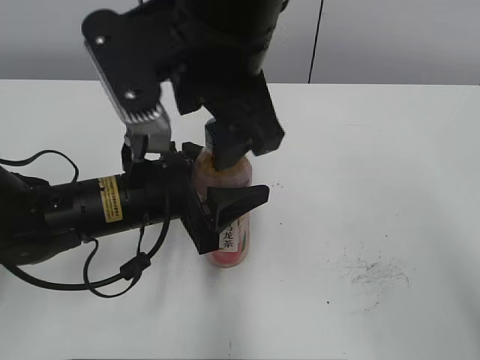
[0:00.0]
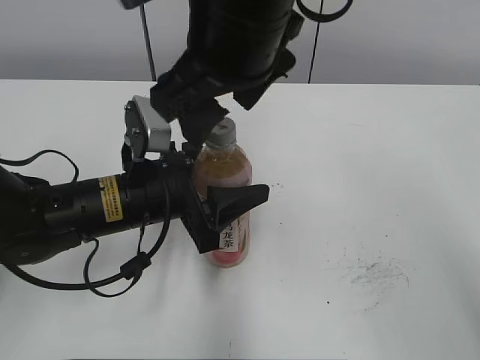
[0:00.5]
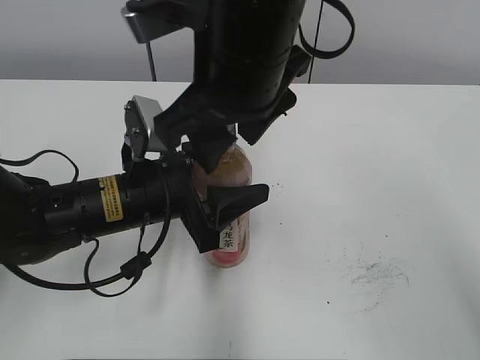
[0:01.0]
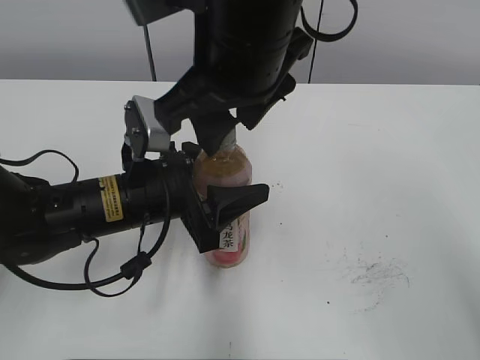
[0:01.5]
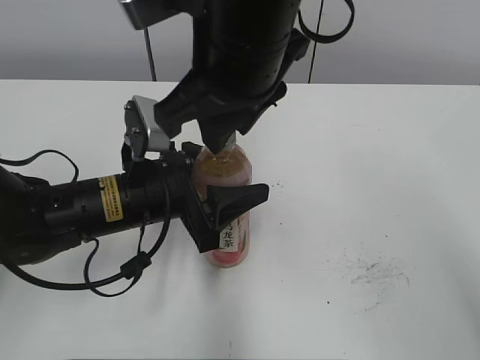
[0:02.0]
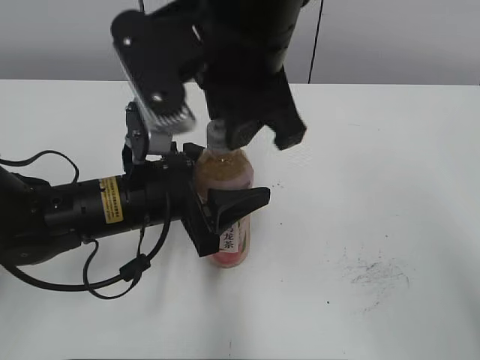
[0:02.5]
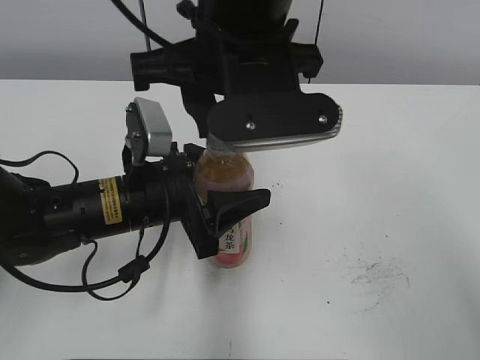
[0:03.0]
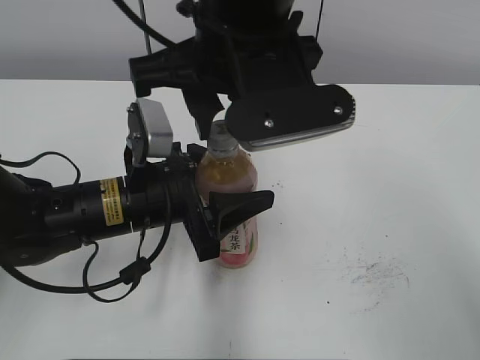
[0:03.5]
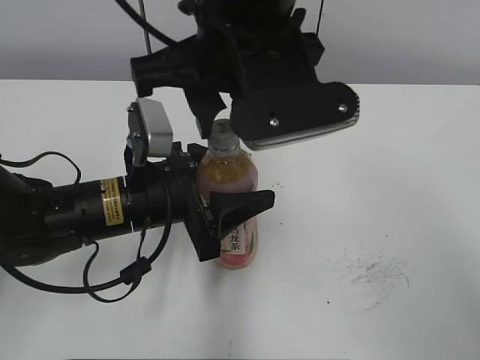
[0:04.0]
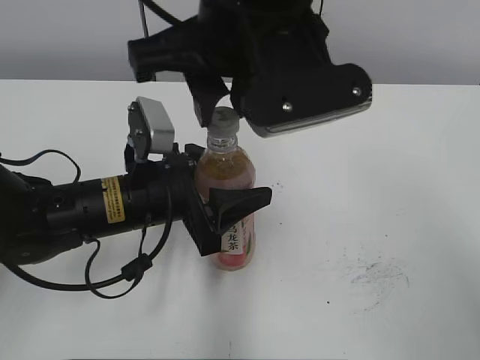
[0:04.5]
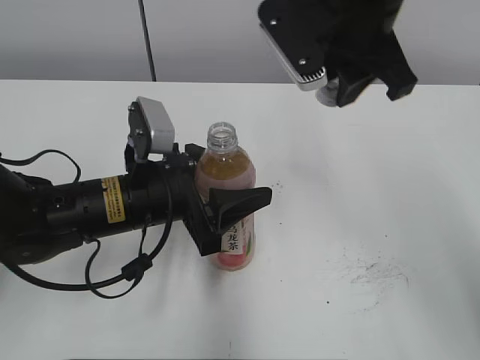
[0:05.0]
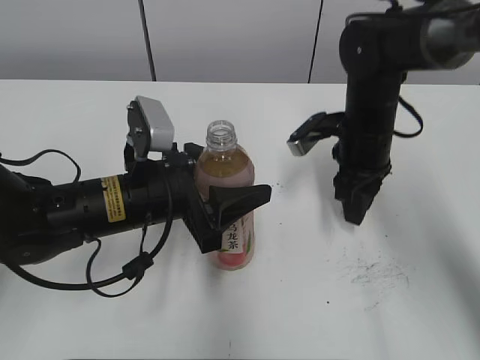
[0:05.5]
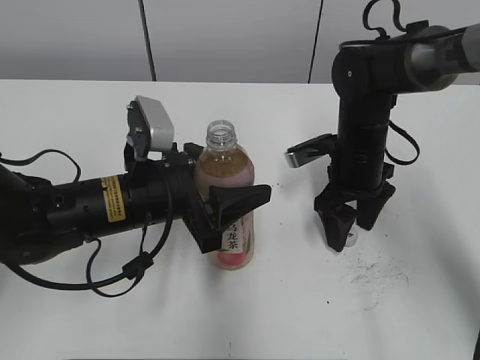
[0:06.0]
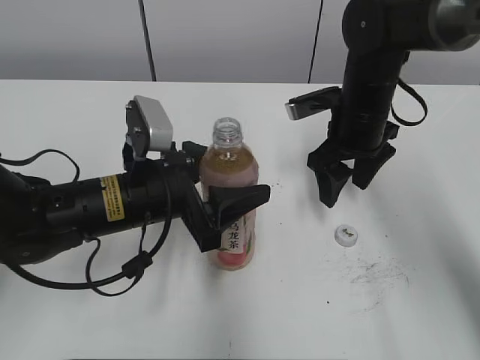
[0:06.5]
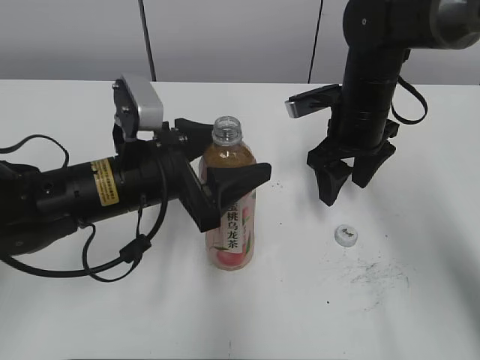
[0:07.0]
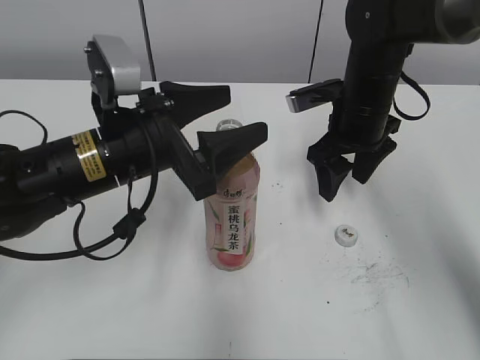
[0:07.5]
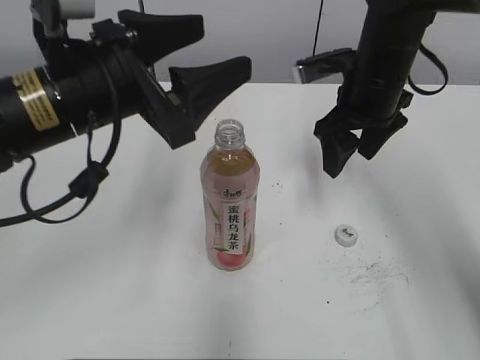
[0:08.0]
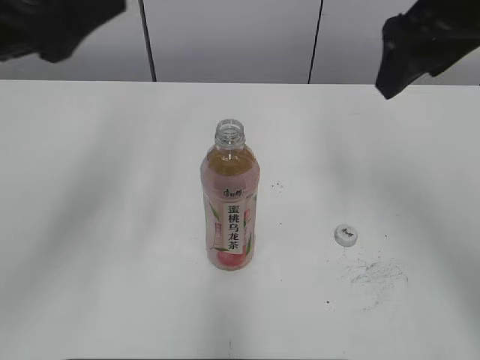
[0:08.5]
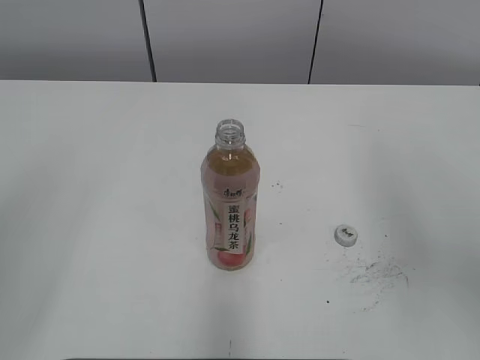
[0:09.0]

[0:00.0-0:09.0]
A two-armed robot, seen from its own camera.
Step, 0:05.0 to 0:05.5: Place the bottle cap on the right.
Step, 0:06.0 to 0:07.0: Place the Peach Oolong Tea with the left hand.
0:00.0 to 0:02.0: The right gripper closes its fingers.
0:04.5 to 0:07.0: The left gripper opens up; the right gripper shifts some 25 cm downward, to the right and forward, and opens.
0:07.0 to 0:09.0: The left gripper travels upward, backward and to the left by about 30 cm. Meanwhile the right gripper moves backward and upward, about 30 cm.

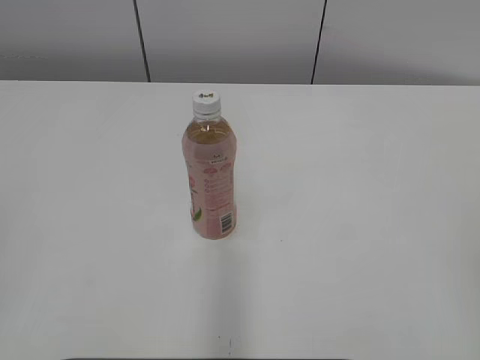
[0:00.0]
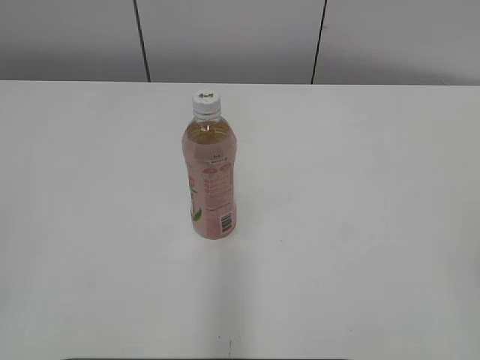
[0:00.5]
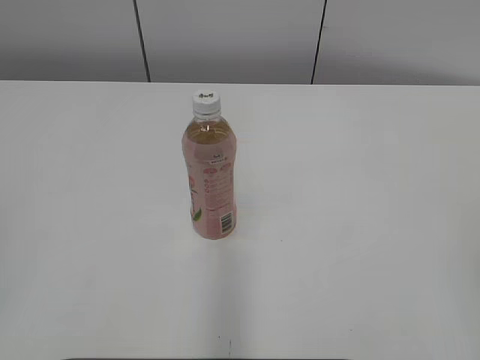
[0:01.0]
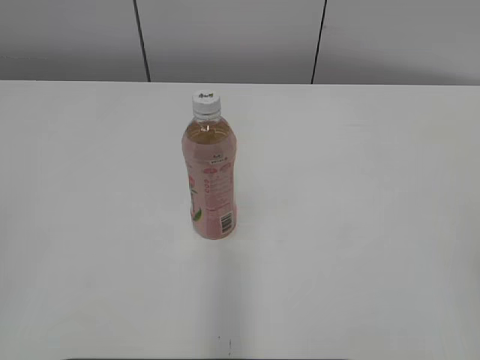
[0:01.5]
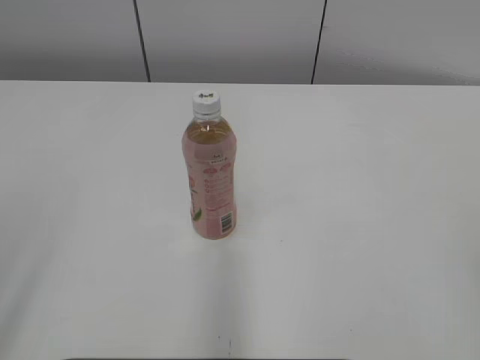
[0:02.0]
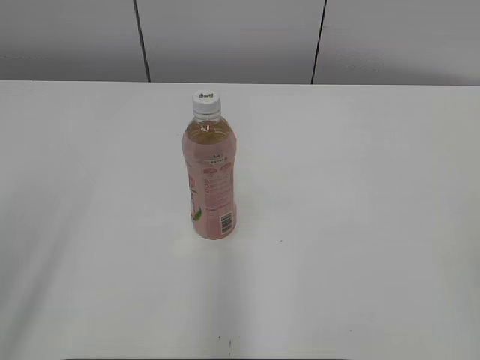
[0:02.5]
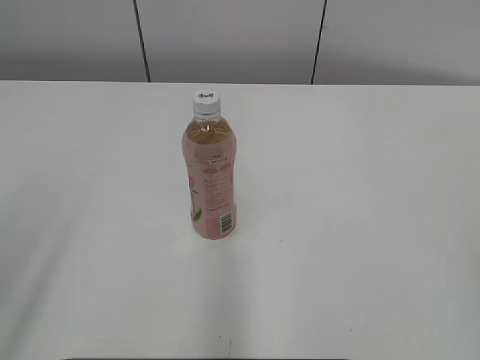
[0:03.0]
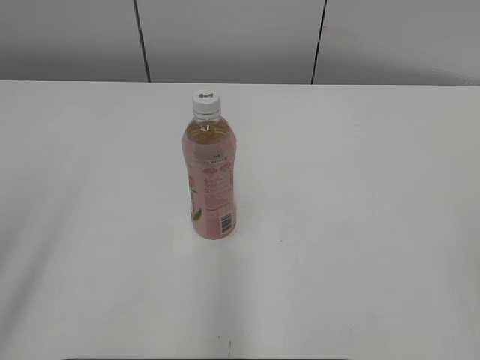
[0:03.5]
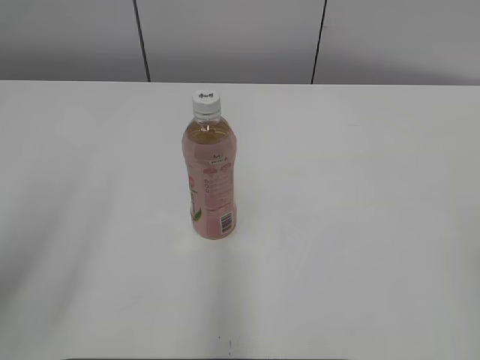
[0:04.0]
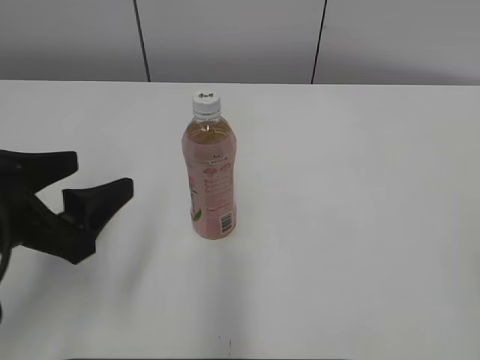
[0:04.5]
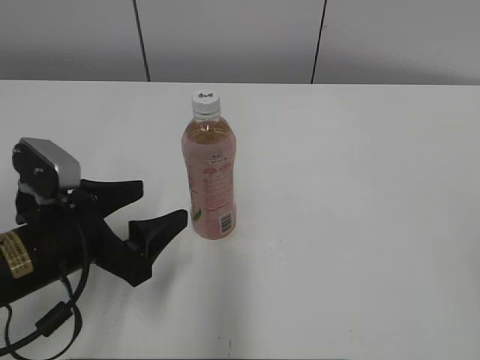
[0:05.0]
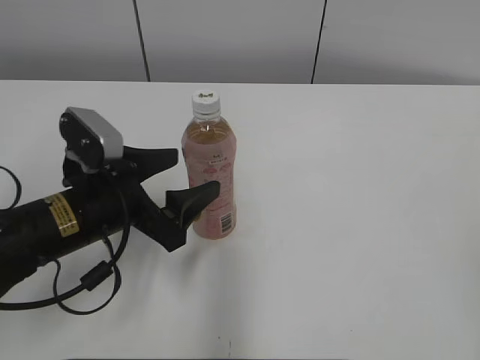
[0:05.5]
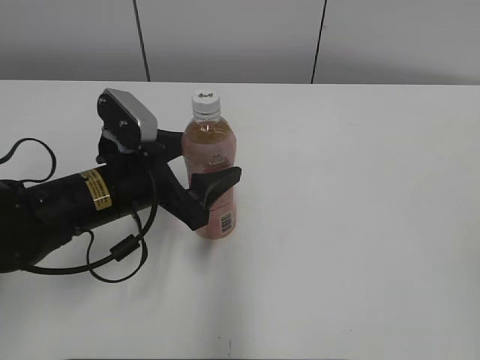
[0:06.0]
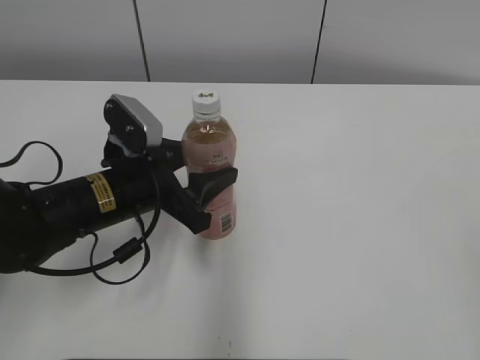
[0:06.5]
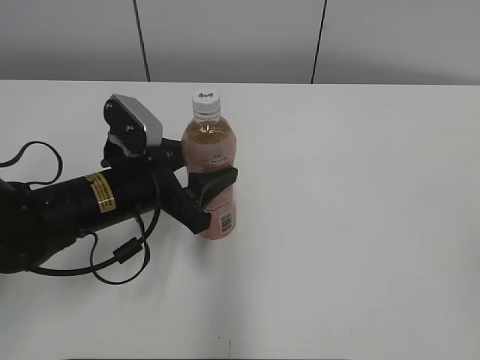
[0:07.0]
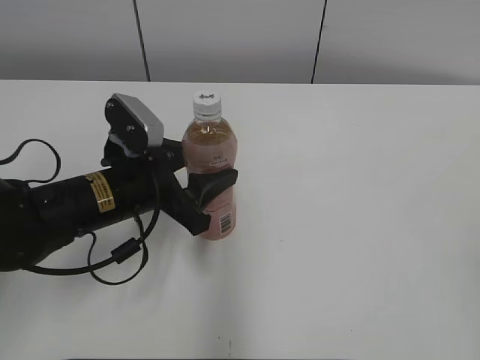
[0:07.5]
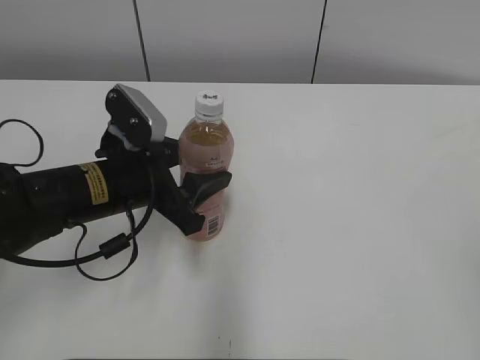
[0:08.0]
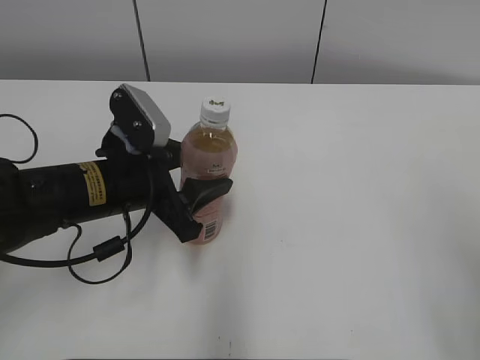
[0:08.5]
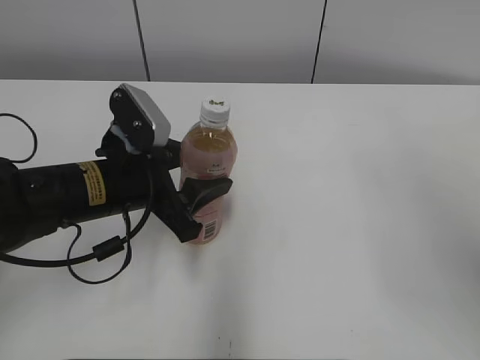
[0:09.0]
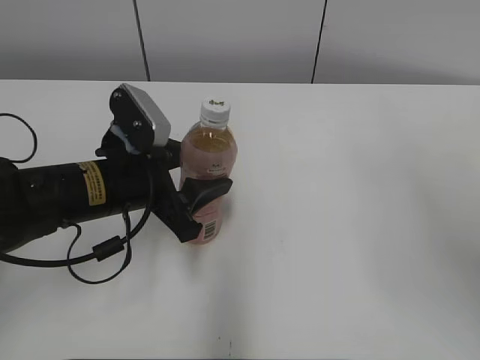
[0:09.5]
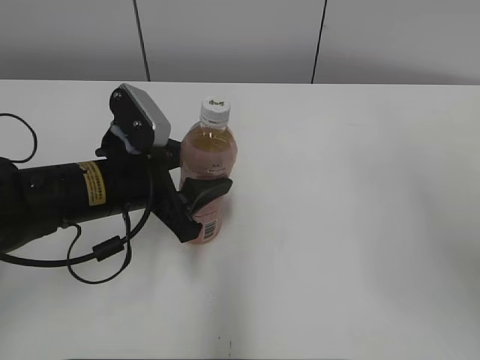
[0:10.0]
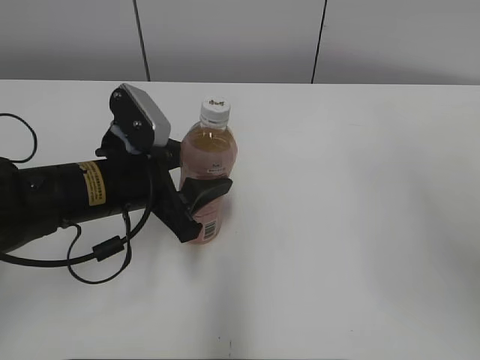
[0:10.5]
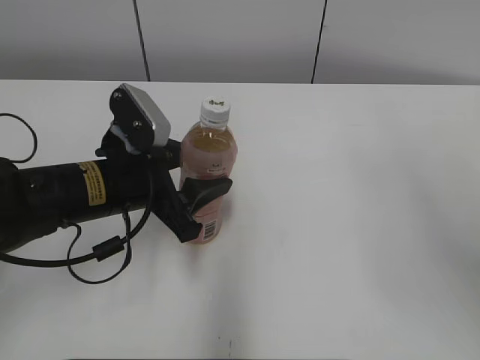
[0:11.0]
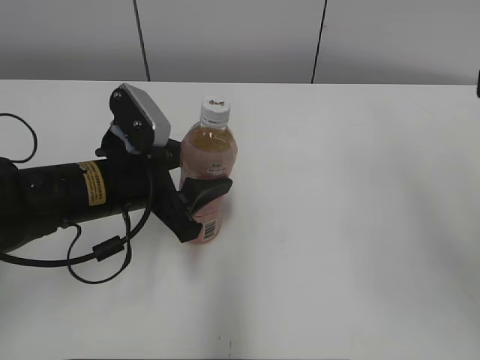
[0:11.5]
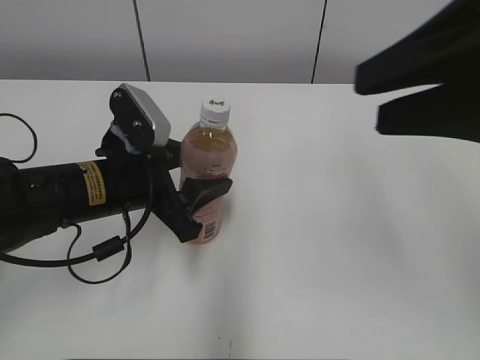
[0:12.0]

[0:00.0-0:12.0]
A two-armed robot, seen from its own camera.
Step, 0:00.0 to 0:07.0: Grab the Peach Oolong Tea with the left hand.
0:04.0 to 0:06.0: The left gripper shifts some 25 cm forward, to the right and downward, and opens up.
0:06.0 to 0:08.0: The left gripper closes.
0:08.0 to 0:10.0: The right gripper travels forward and upward by about 20 cm.
0:10.0 to 0:12.0: The right gripper heads to the left, covering some 5 cm.

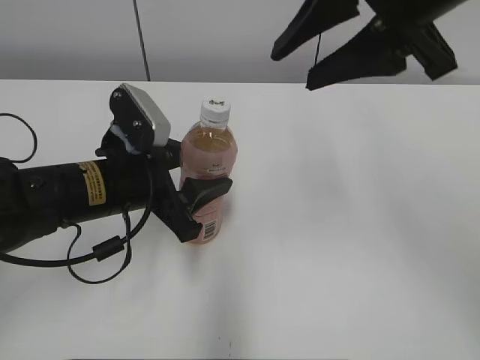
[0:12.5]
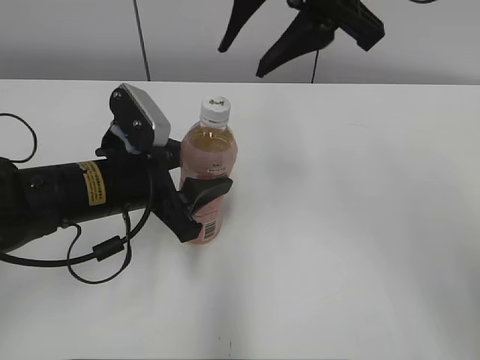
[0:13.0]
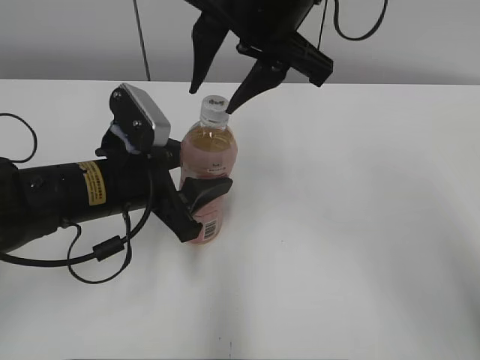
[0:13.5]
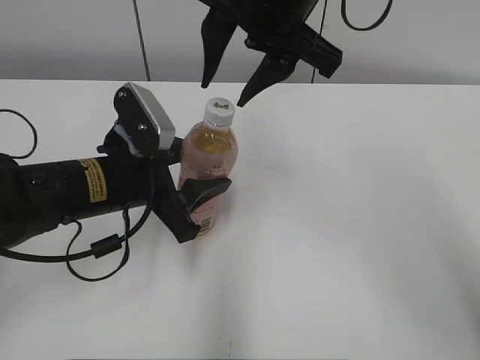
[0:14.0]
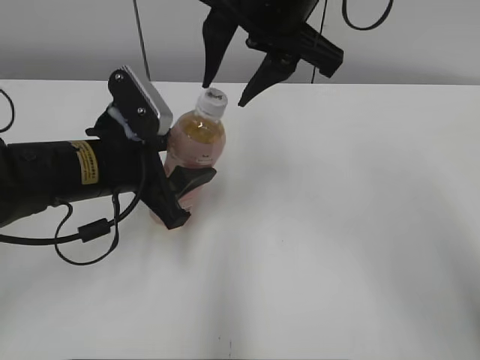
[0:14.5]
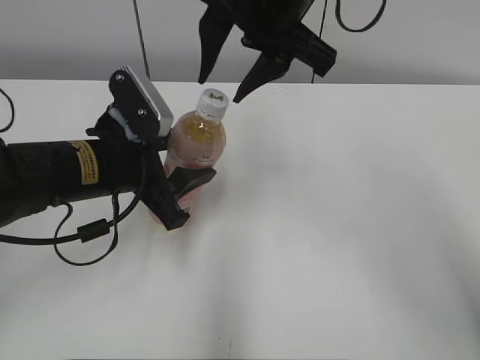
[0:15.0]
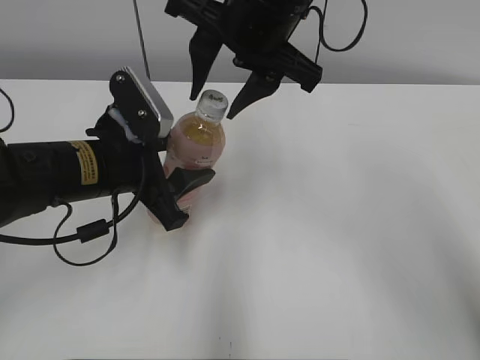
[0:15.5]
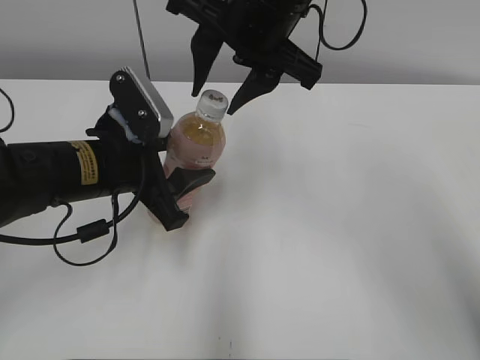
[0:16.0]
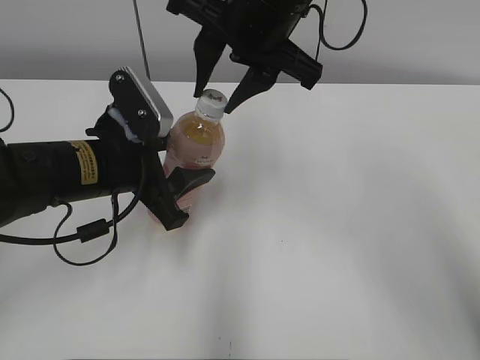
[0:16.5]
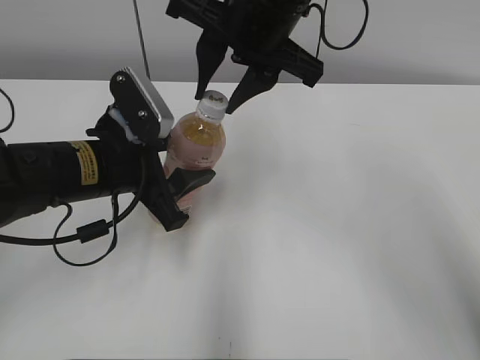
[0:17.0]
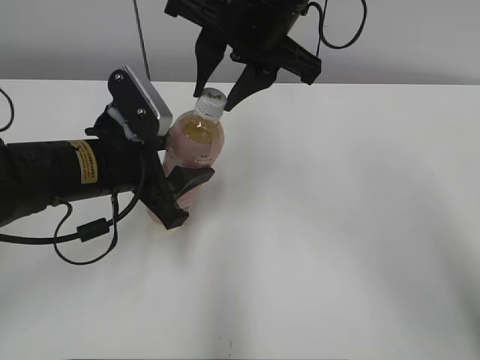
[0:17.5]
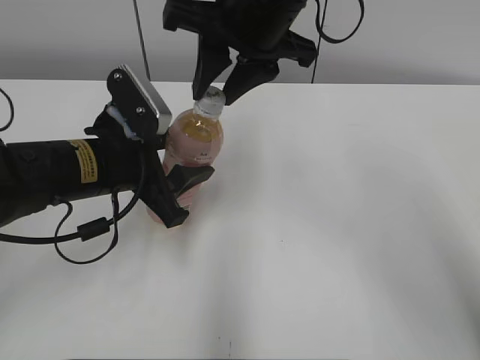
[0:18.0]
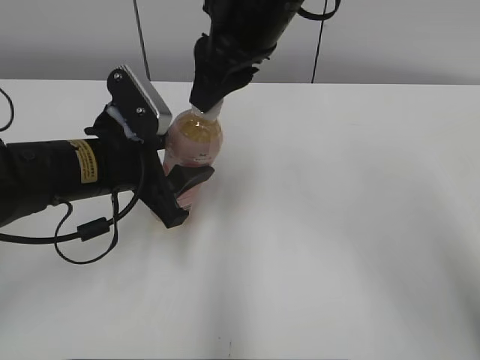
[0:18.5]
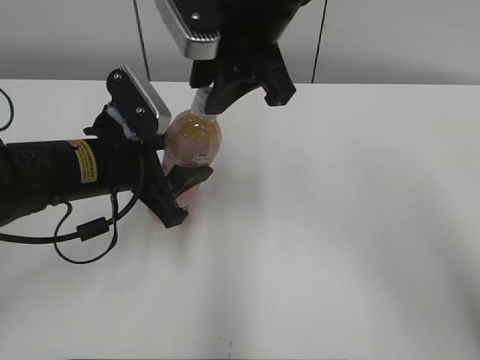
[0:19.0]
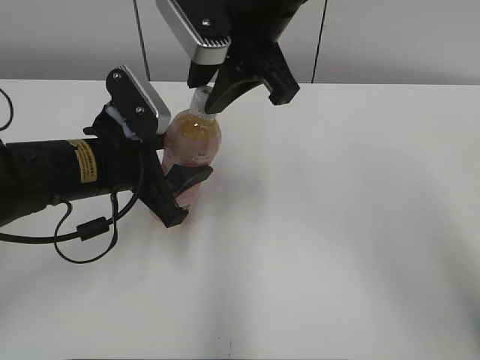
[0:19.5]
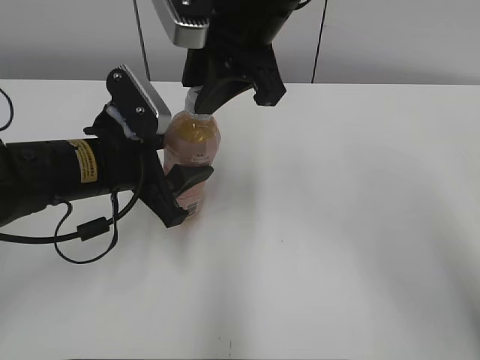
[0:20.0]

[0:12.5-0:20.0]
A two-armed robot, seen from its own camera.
0:12.5 to 0:14.5: The right gripper is displaced to the left and forward by about 10 cm.
0:14.5 to 0:16.5: There are only small adjustments of the grippers.
